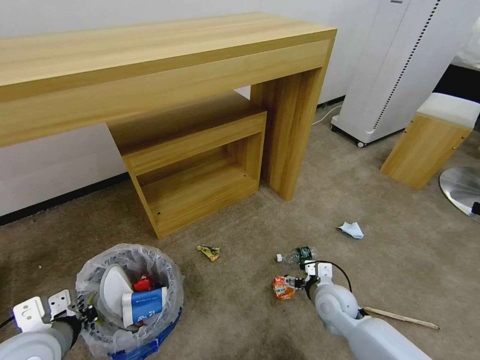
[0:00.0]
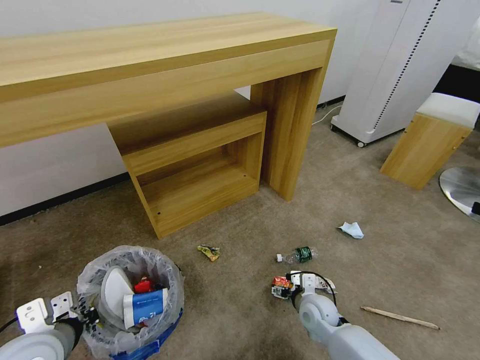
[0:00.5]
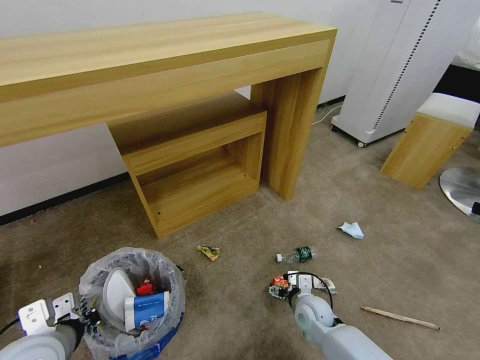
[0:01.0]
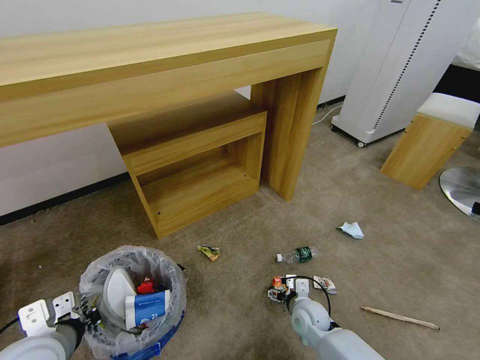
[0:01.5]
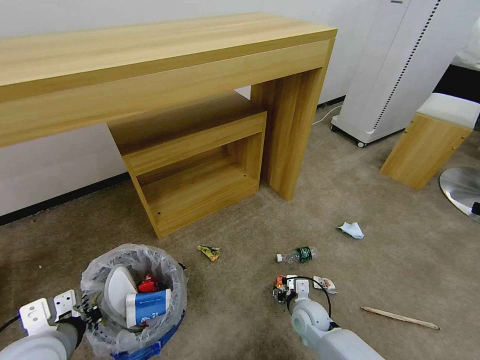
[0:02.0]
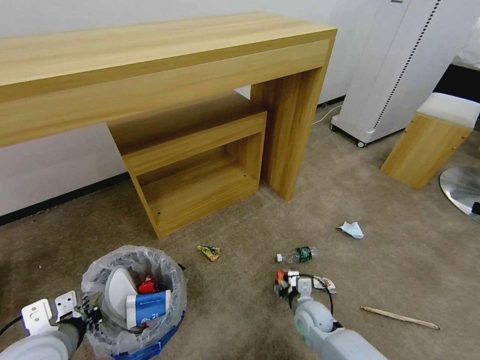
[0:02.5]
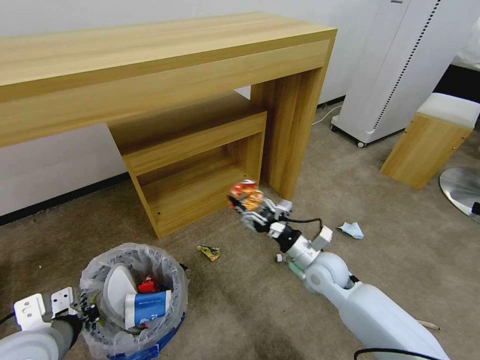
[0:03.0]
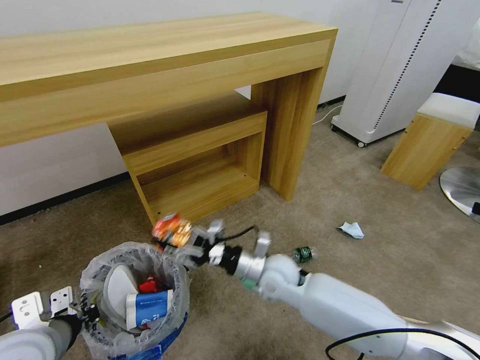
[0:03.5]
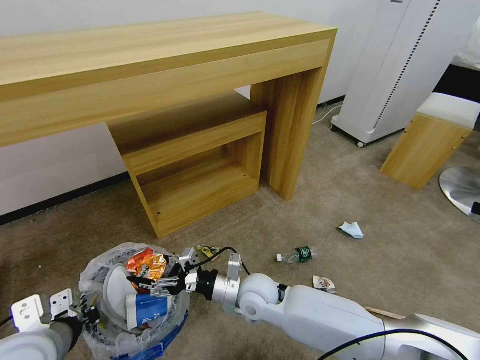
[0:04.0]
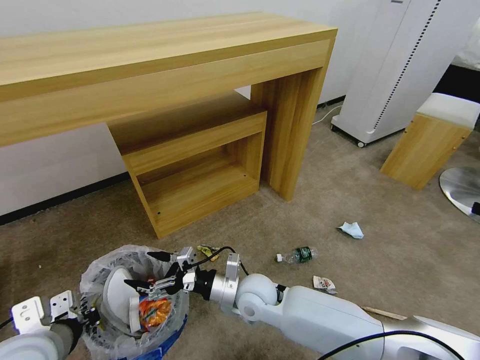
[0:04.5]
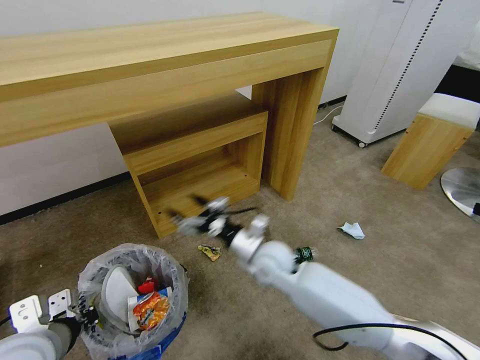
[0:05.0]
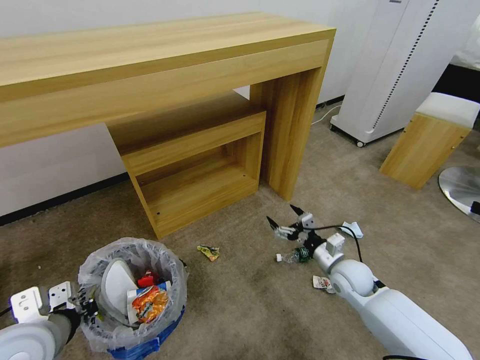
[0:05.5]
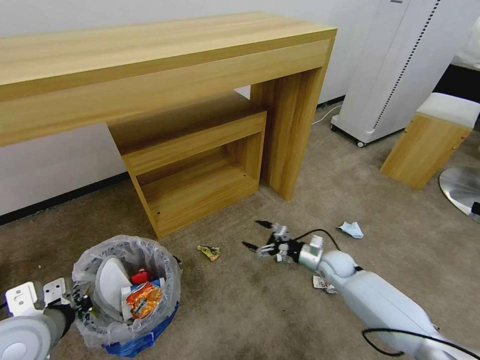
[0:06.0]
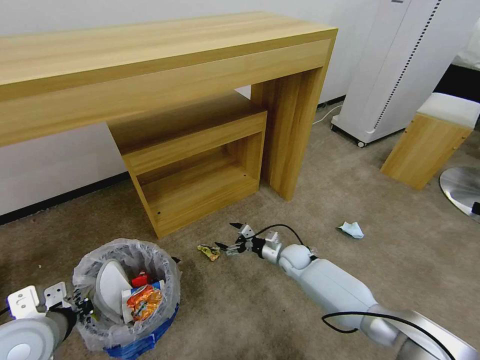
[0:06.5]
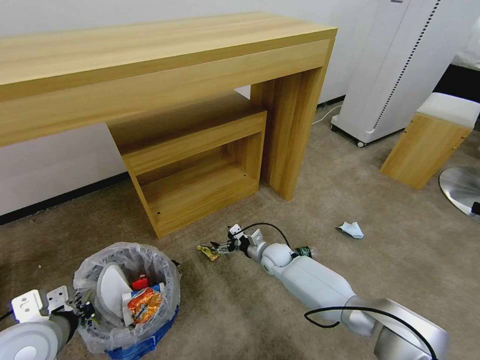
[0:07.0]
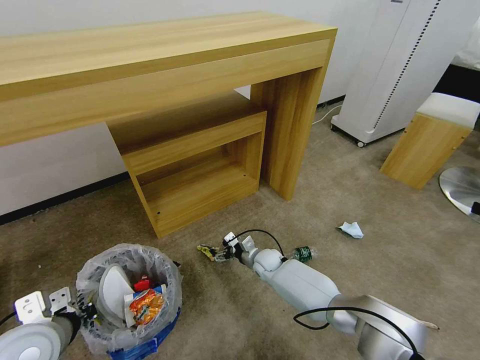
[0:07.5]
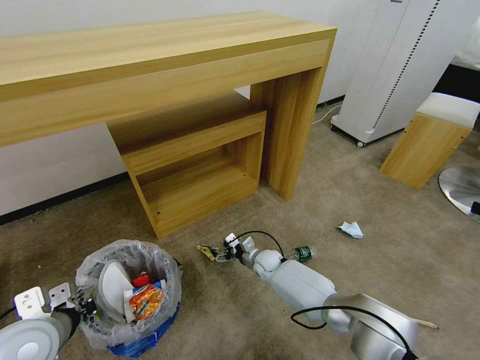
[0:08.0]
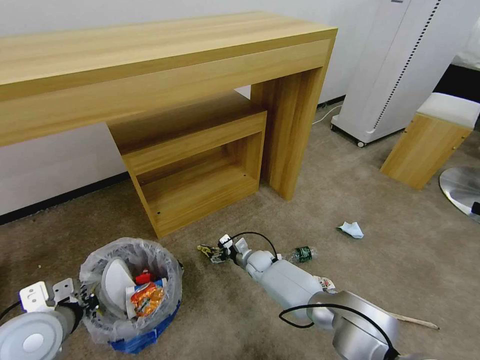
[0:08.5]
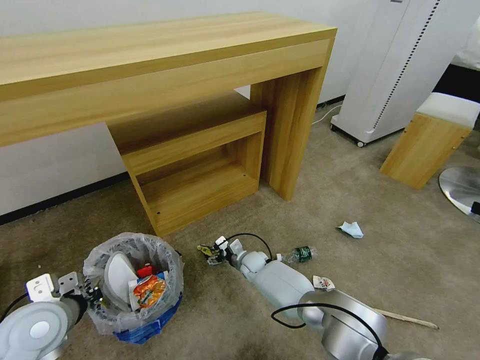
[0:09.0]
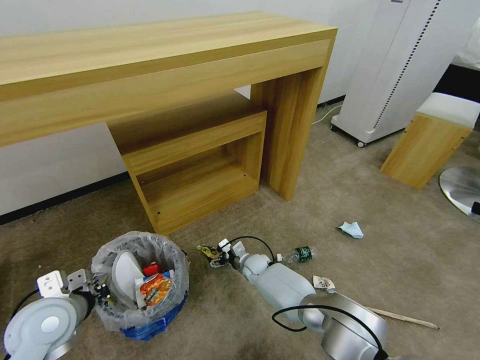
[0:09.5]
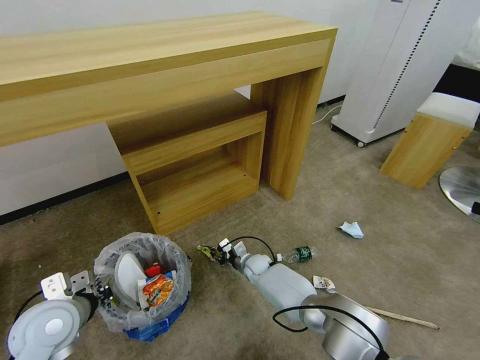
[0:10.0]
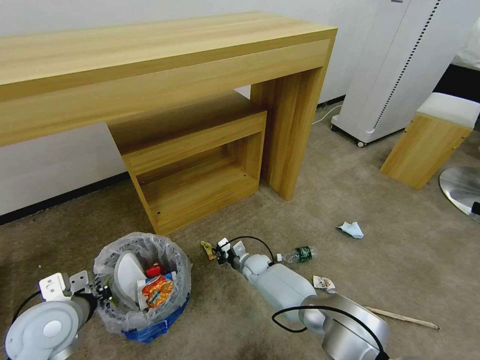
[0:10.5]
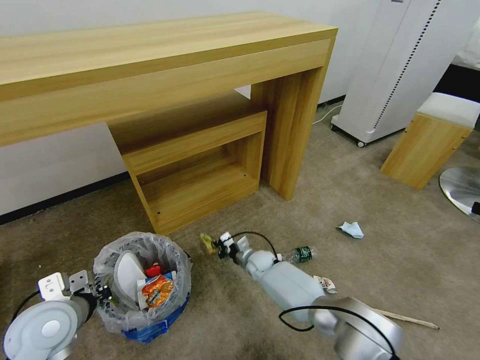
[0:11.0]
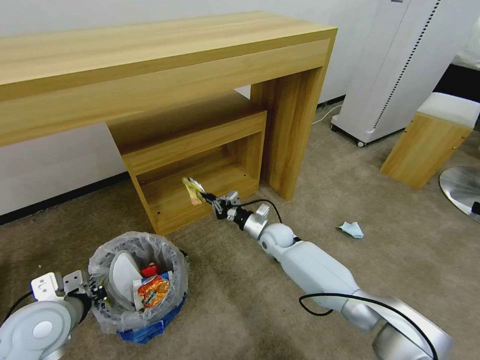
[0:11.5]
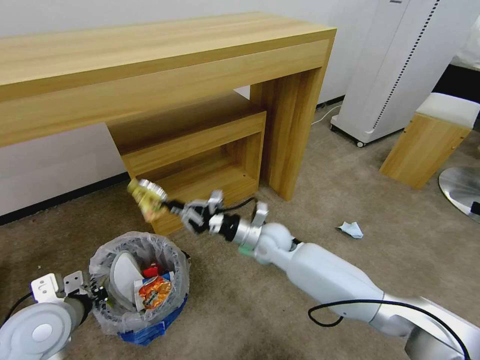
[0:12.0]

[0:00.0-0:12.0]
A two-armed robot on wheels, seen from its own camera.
Task of the whole recording: Pick up the trash bin and place the garbage on the floor into it.
0.0 to 2.0 s: The right gripper travels downward by about 10 cm, and closes its fingers.
2.0 to 4.0 s: The right gripper moves to the left and upward, some 20 cm.
4.0 to 6.0 s: The right gripper goes about 25 cm to the right.
6.0 to 8.0 s: The right gripper heads to the left, covering roughly 20 cm.
8.0 to 10.0 s: The right gripper closes up.
10.0 to 12.0 s: The right gripper travels upward by approximately 25 cm, and closes.

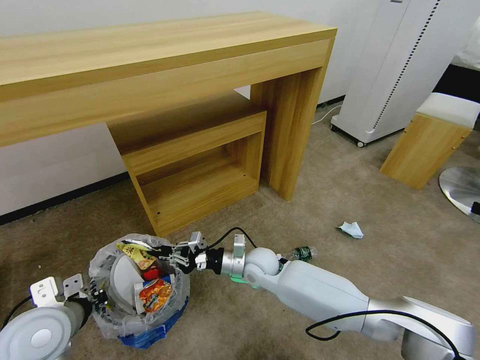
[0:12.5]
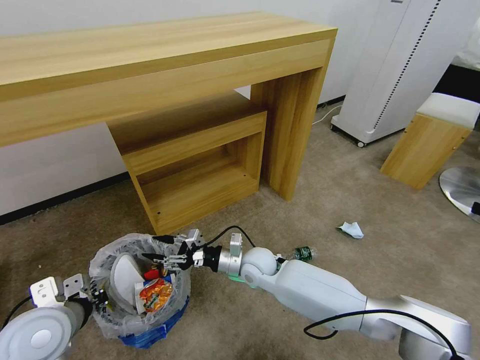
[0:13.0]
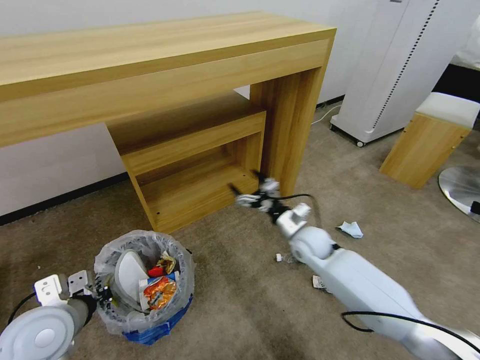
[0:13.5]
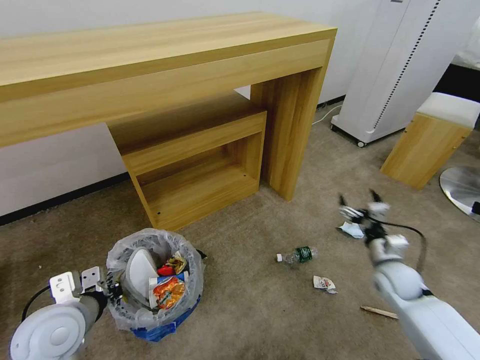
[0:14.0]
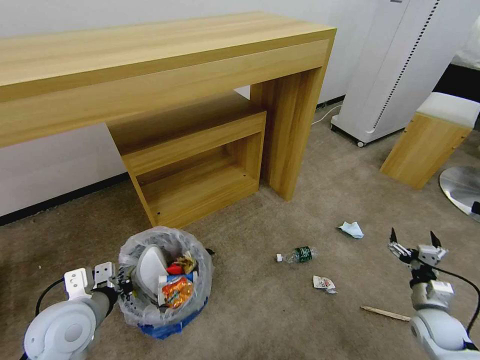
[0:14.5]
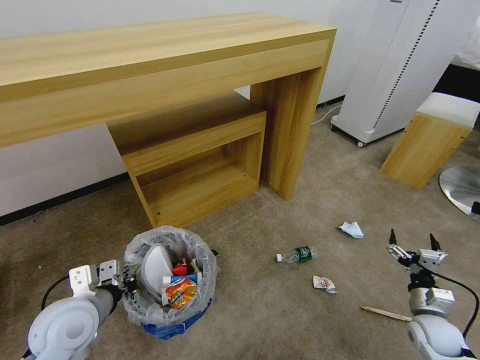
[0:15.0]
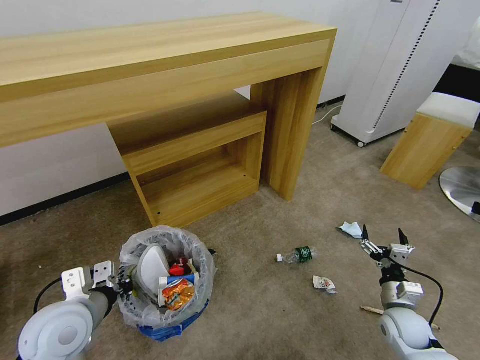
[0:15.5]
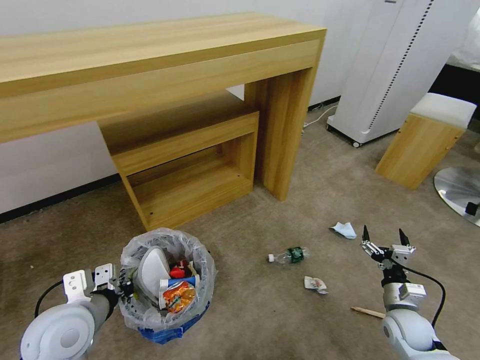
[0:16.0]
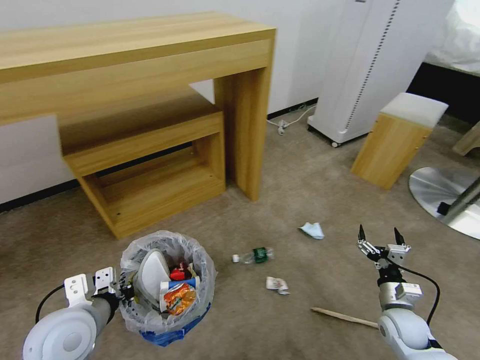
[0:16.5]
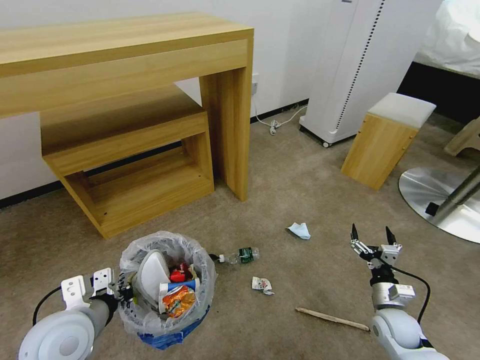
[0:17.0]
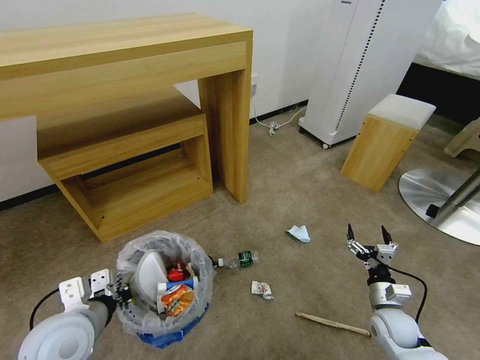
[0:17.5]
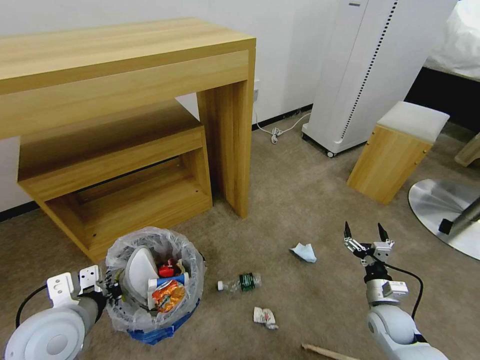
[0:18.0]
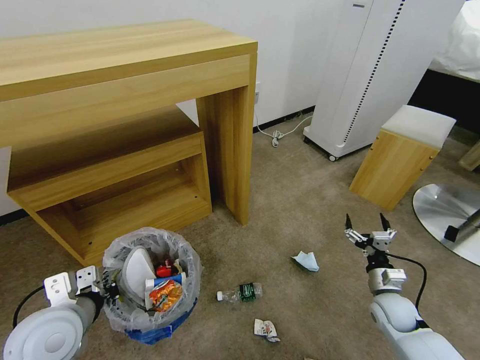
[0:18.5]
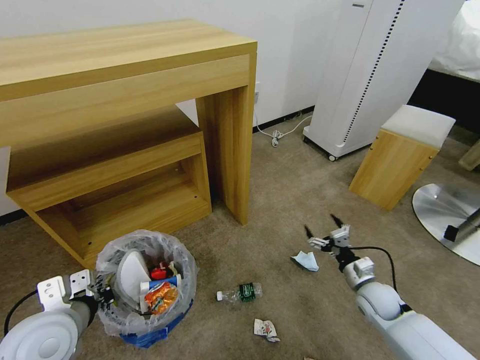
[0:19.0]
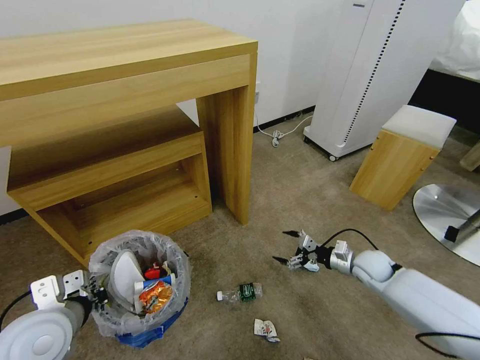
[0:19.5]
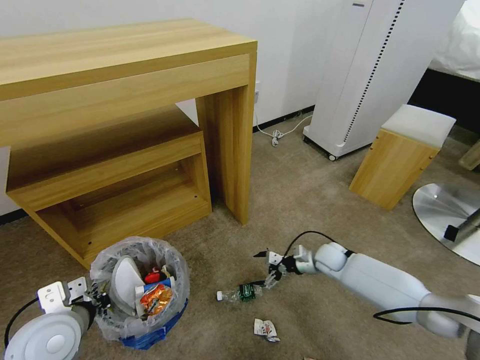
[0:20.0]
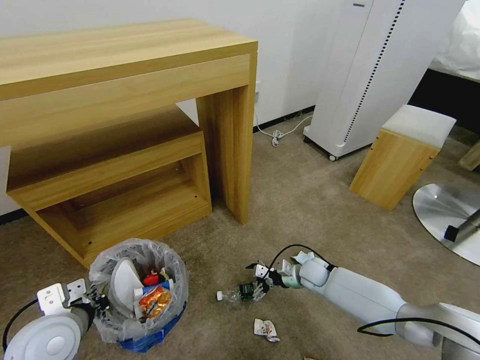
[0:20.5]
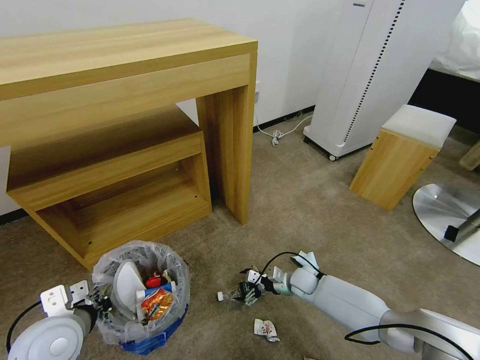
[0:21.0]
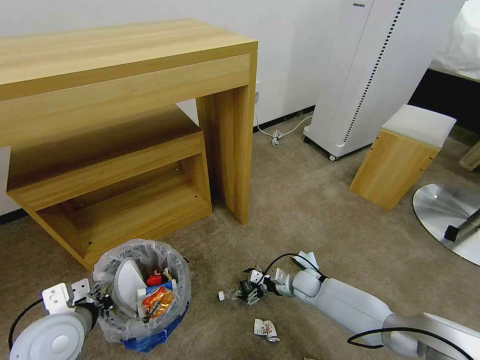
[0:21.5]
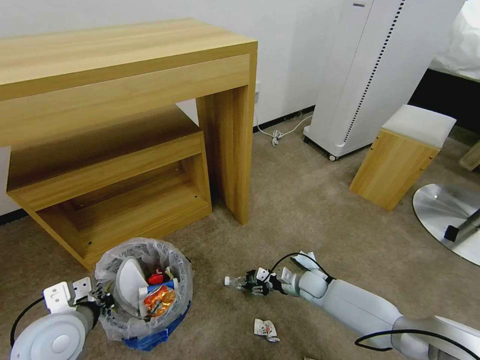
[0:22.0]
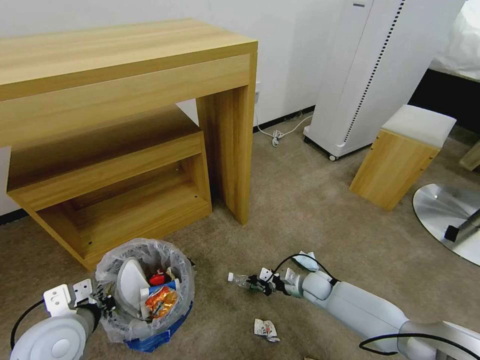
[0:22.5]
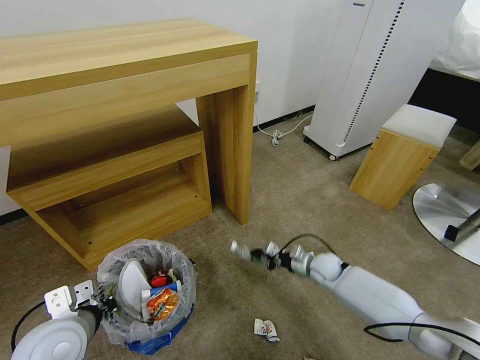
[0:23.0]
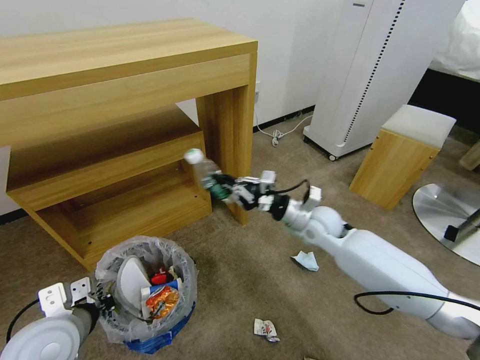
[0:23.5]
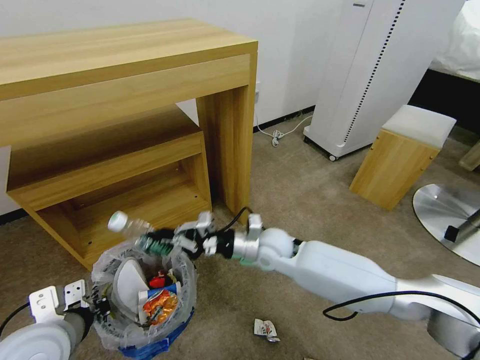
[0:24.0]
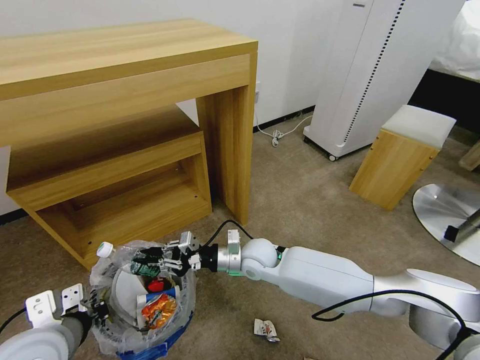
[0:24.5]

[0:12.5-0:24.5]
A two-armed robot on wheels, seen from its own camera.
Task of the whole recording: Pick up the trash bin and place the garbage on the floor into it.
12.5 to 14.5 s: The right gripper travels to the right by some 40 cm, and opens up.
14.5 to 16.5 s: The right gripper moves to the left, roughly 5 cm.
18.5 to 20.5 s: The right gripper heads to the left and forward, covering about 20 cm.
20.5 to 22.5 s: The right gripper closes.
22.5 to 24.5 s: The right gripper heads to the left and upward, covering about 25 cm.

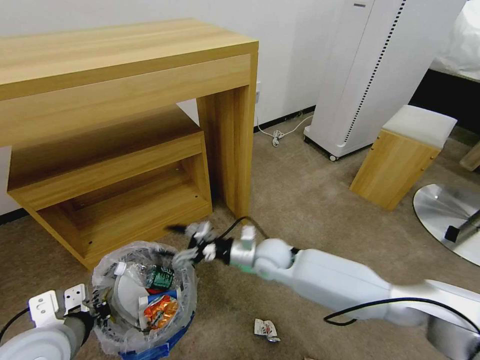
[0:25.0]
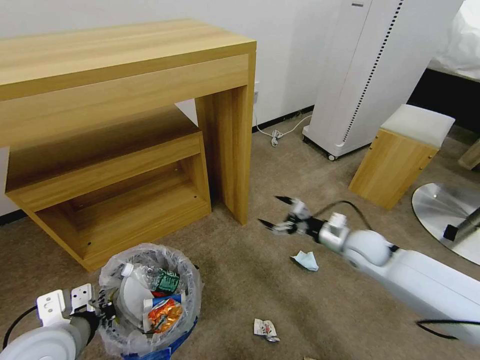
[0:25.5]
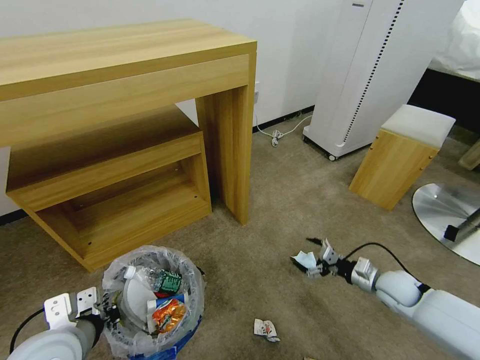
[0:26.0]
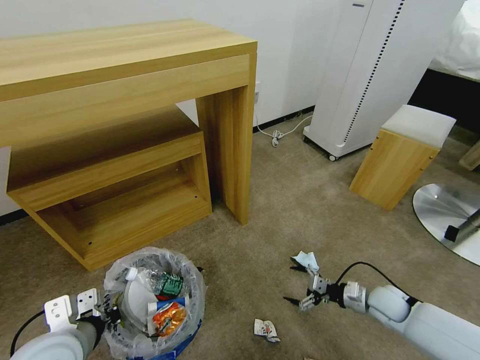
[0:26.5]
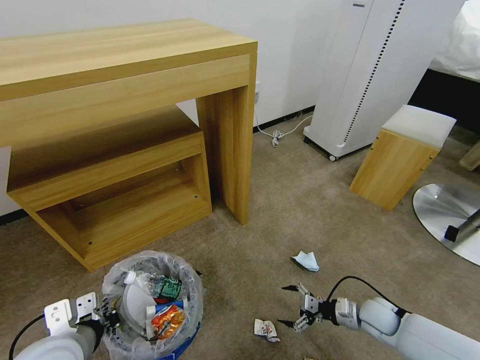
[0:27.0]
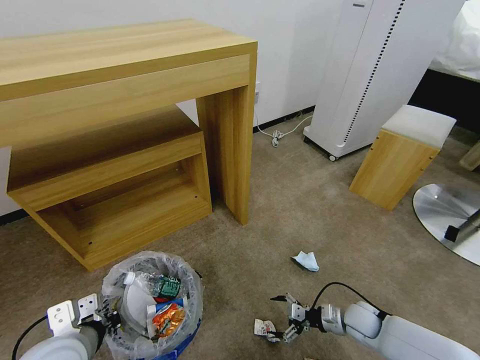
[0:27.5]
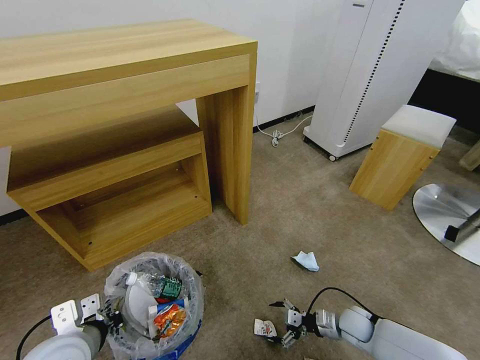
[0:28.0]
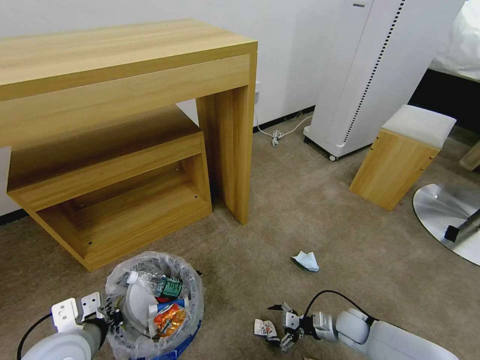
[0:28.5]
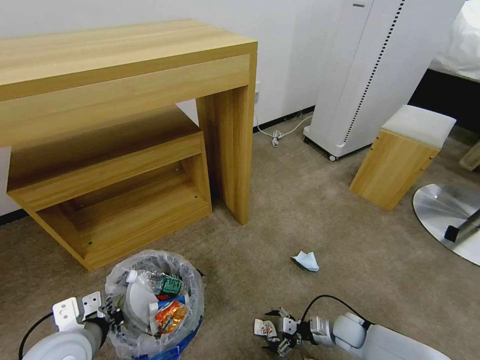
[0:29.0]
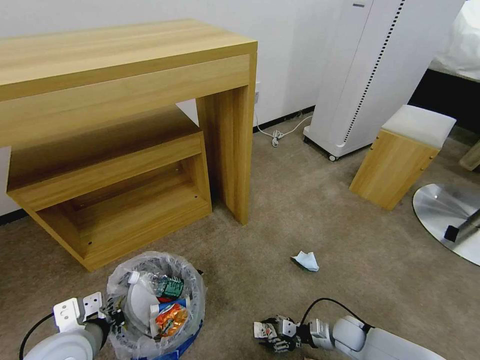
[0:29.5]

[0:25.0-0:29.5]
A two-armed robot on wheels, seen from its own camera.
Task of the whole recording: Pick up the trash bin and place the garbage on the floor into it.
25.0 to 27.0 s: The right gripper is displaced to the right and downward by roughly 35 cm.
27.0 to 29.5 s: The right gripper is displaced downward and to the left by some 10 cm, and closes its fingers.
